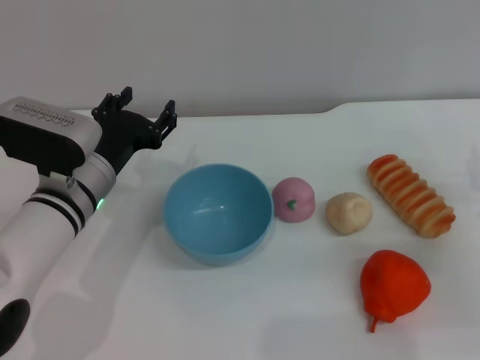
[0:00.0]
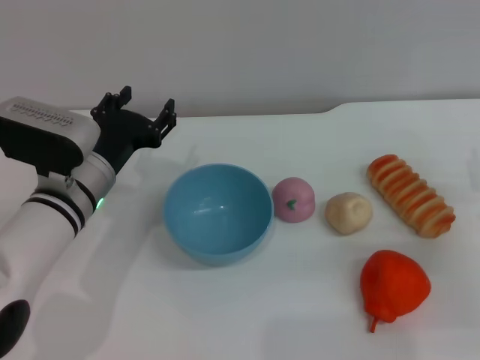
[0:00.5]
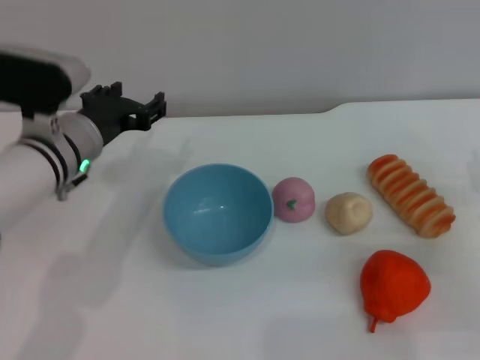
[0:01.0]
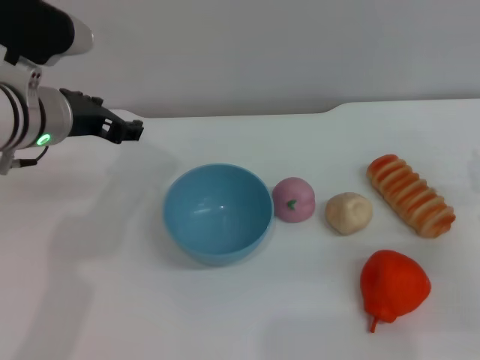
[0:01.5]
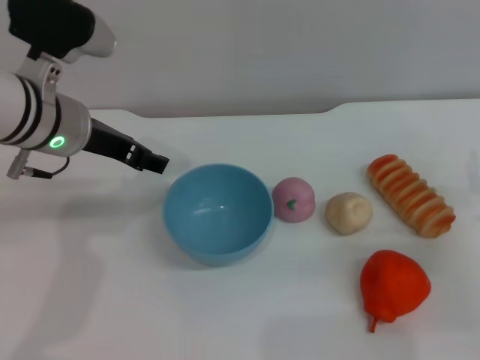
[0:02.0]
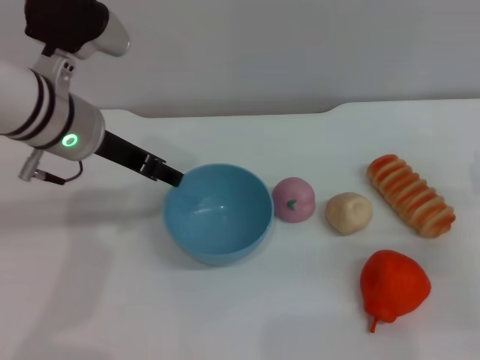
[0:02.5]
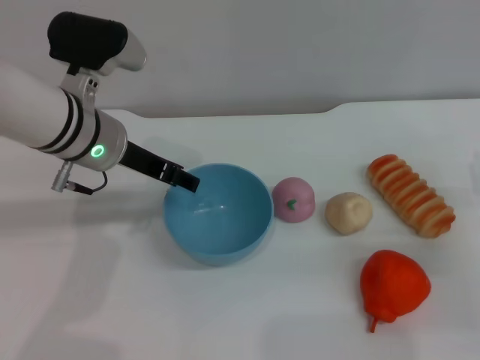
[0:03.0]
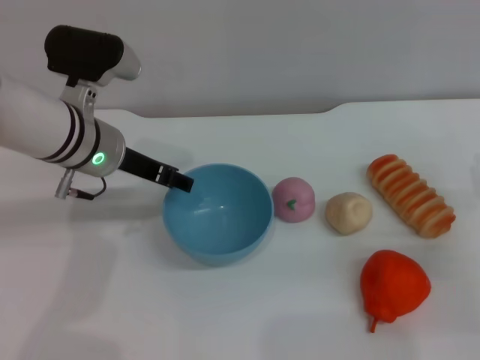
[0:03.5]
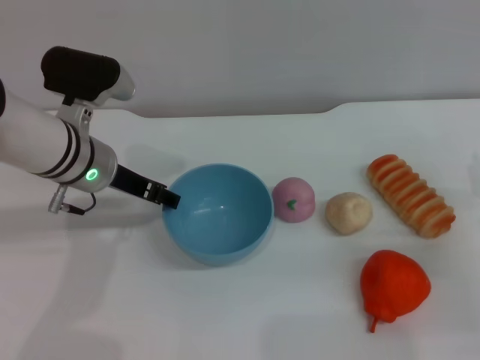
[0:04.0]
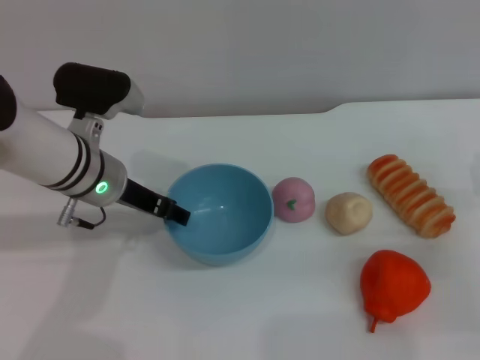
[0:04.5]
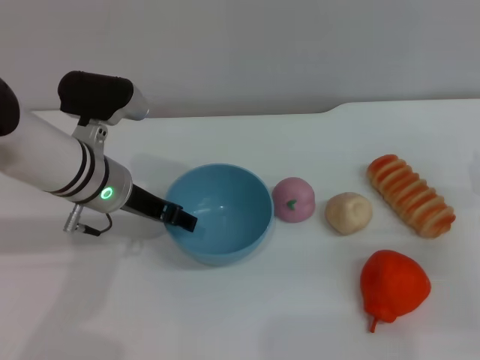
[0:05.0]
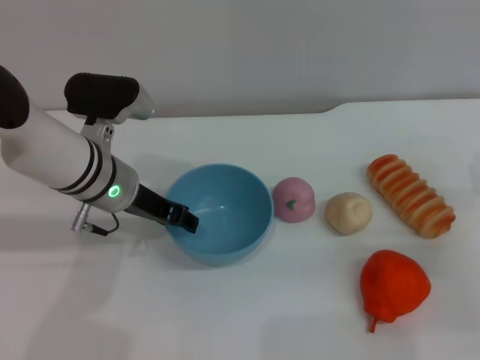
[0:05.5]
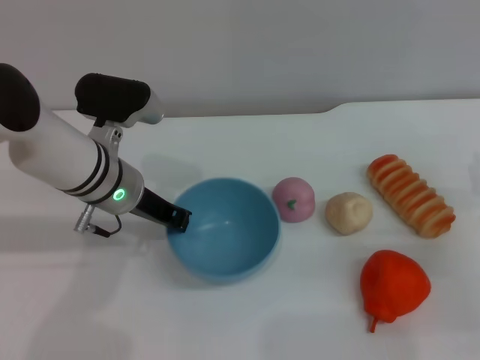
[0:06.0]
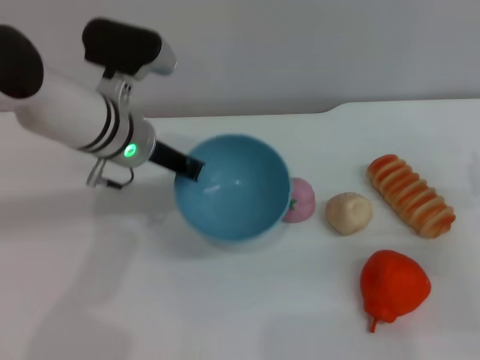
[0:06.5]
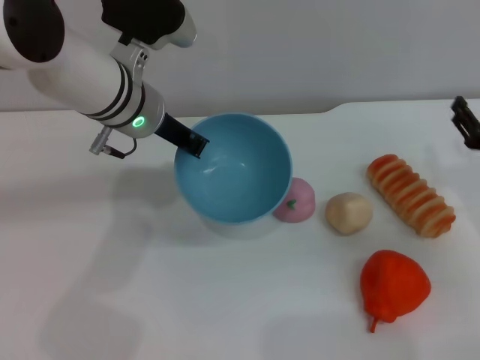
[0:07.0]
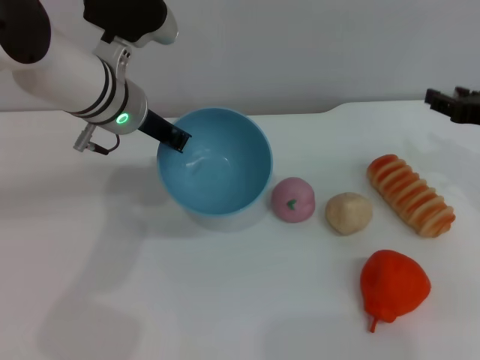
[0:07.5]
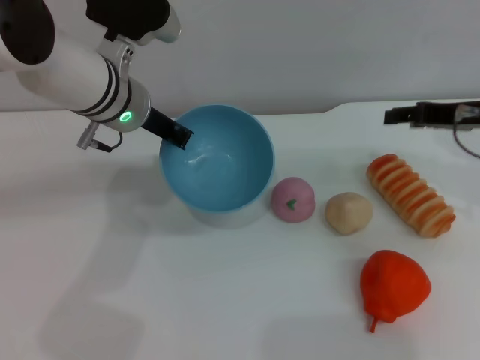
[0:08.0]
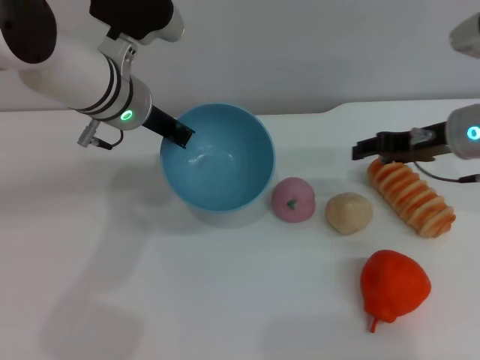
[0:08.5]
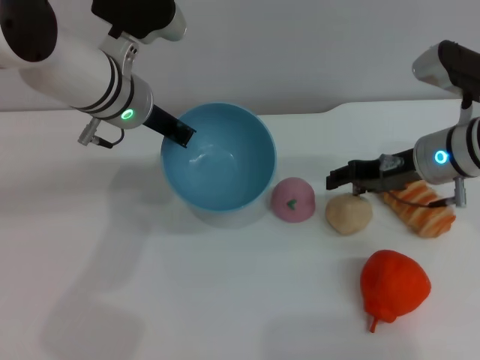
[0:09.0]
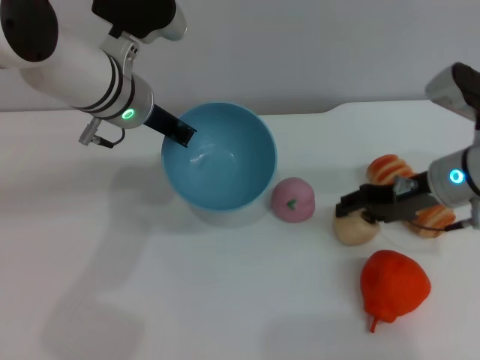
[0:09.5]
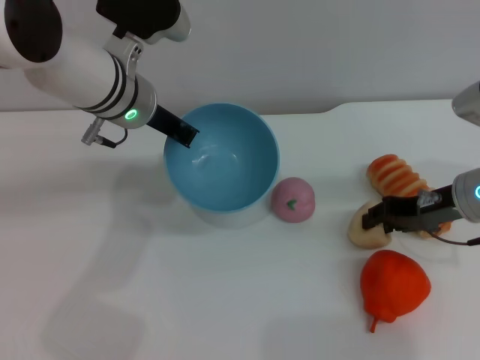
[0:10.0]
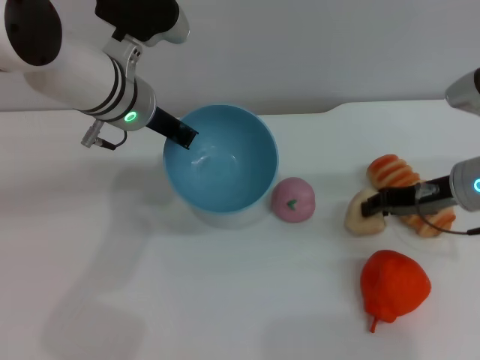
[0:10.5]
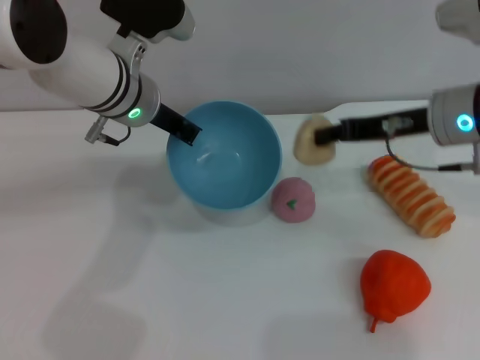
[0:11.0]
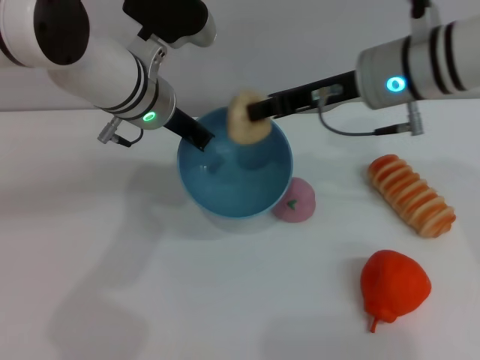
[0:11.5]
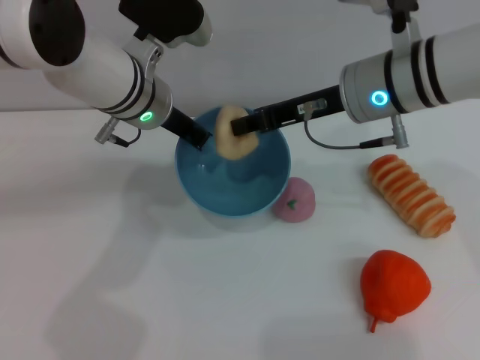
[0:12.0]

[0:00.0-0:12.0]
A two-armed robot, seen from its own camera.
Task of the whole recording: put the egg yolk pastry into the blue bowl and pour it out repeatedly.
Step, 0:00.0 to 0:06.5: Pick up the bowl with the left gripper.
Step, 0:07.0 to 0:10.5: Pick up the egg yolk pastry with the right gripper.
0:00.0 to 0:02.0: The left gripper heads upward, covering some 10 cm.
0:02.0 to 0:04.0: The left gripper travels downward by about 5 cm.
0:04.0 to 0:06.0: The left gripper closes up.
0:06.0 to 0:08.0: The right gripper goes approximately 15 cm upward and forward, while the left gripper travels upward by approximately 5 cm.
0:08.0 to 0:10.0: The right gripper moves downward, approximately 5 cm.
0:10.0 to 0:12.0: The right gripper shifts approximately 15 cm to the left and upward, and closes.

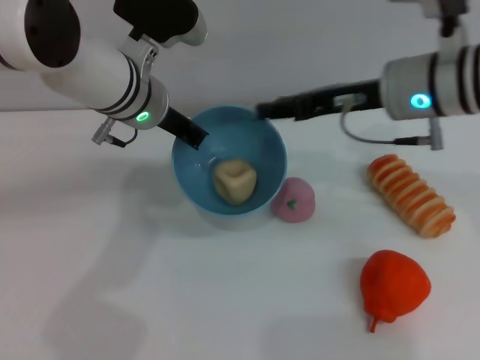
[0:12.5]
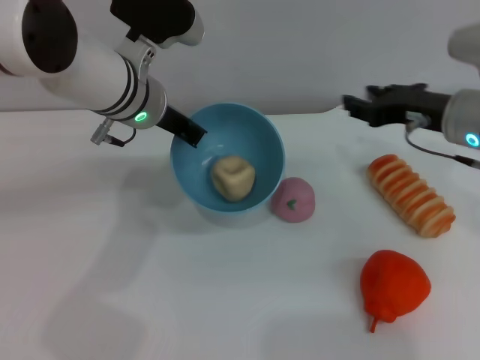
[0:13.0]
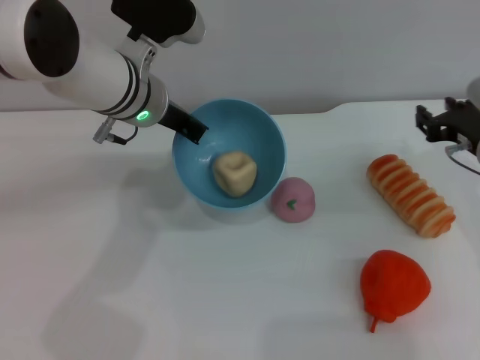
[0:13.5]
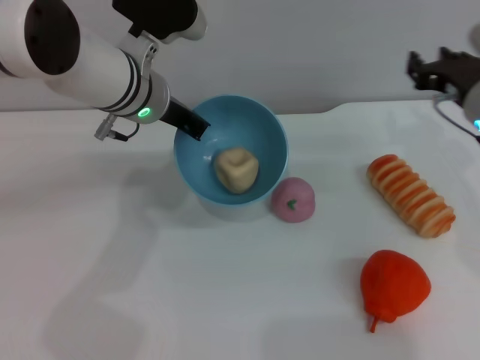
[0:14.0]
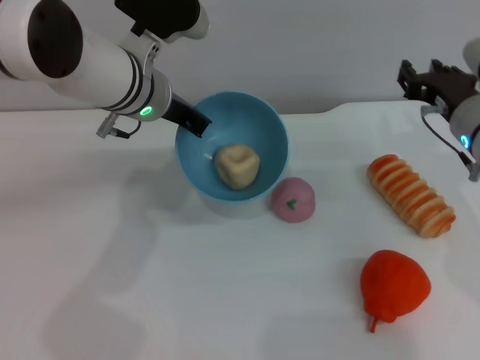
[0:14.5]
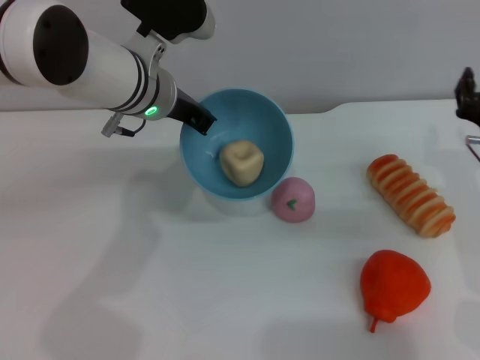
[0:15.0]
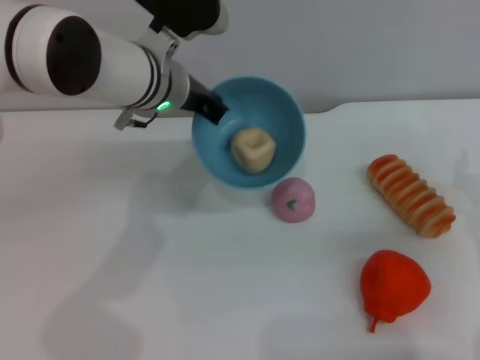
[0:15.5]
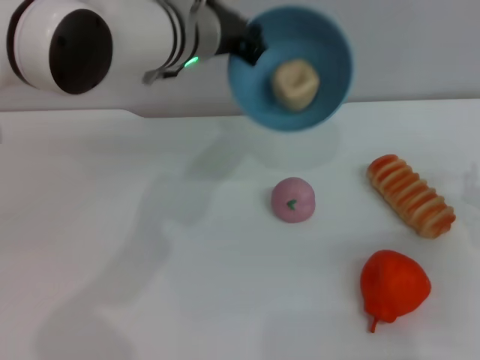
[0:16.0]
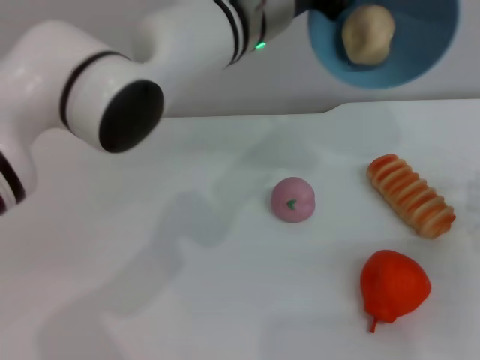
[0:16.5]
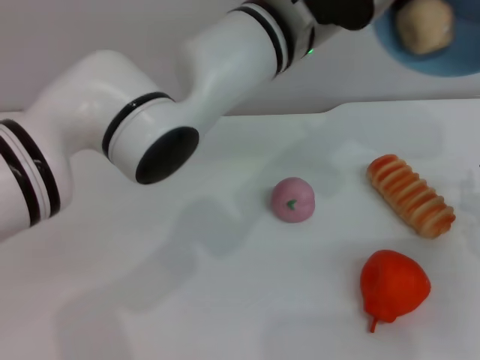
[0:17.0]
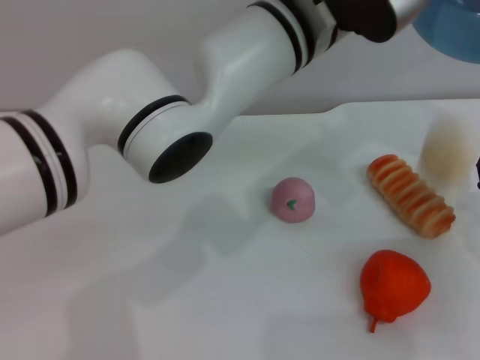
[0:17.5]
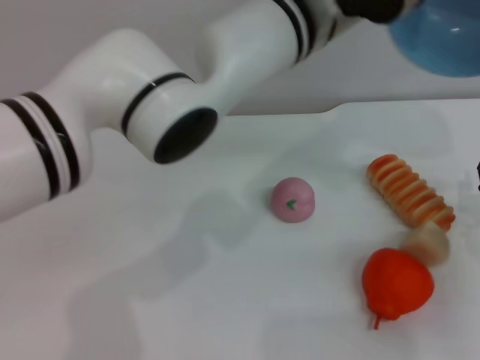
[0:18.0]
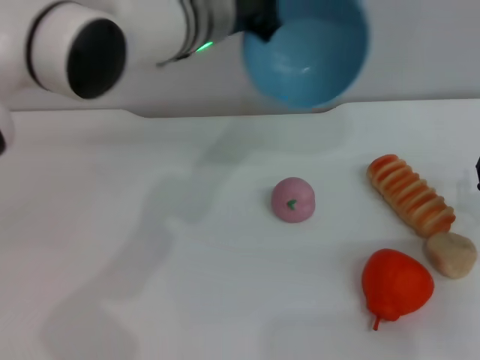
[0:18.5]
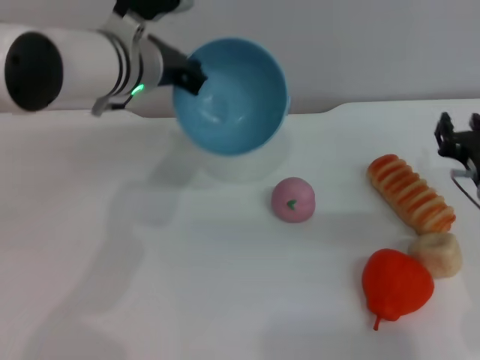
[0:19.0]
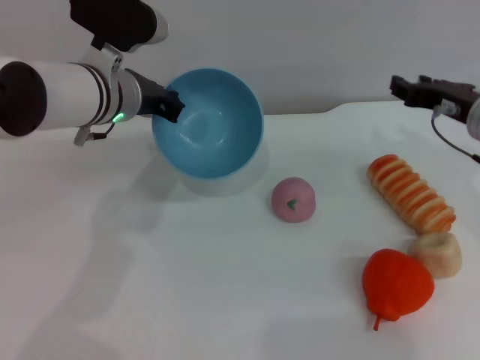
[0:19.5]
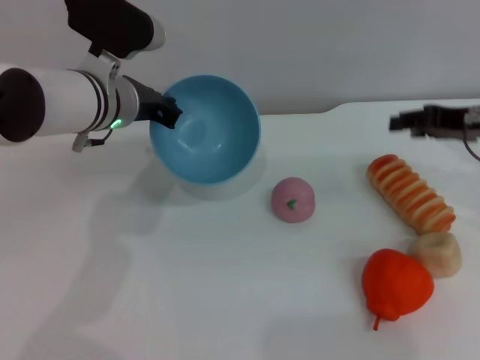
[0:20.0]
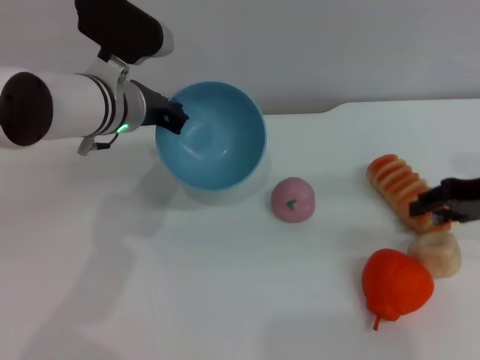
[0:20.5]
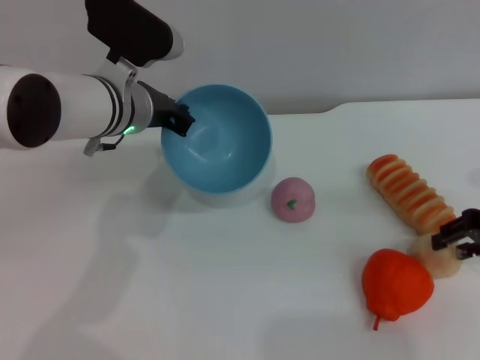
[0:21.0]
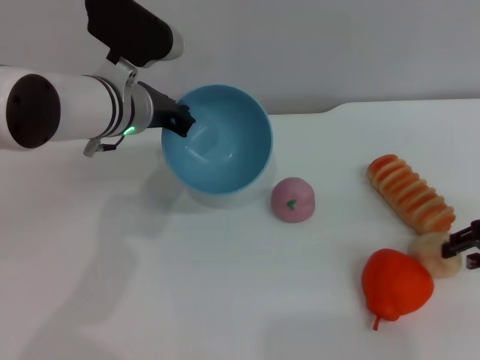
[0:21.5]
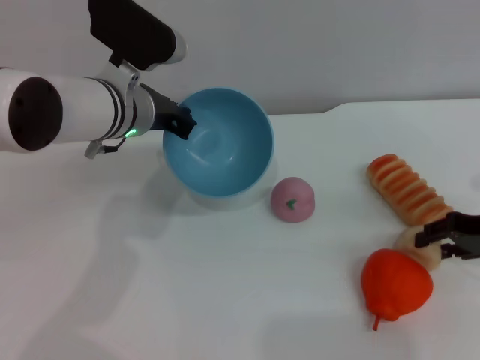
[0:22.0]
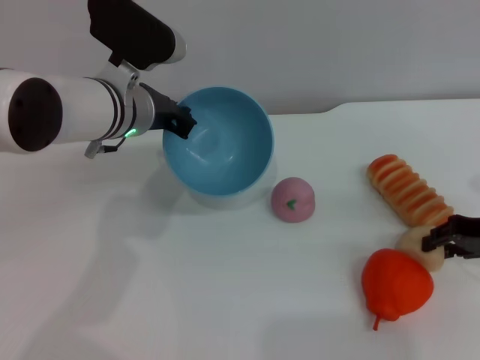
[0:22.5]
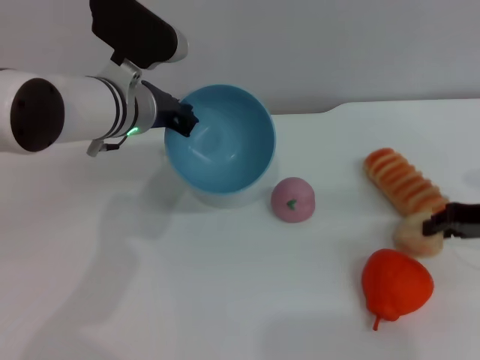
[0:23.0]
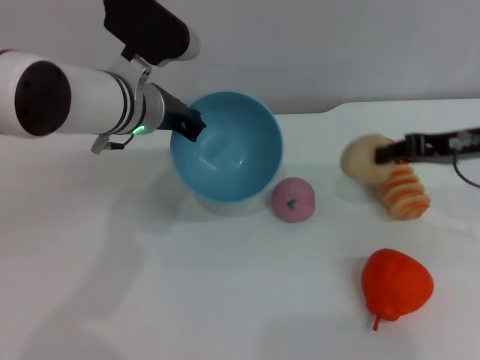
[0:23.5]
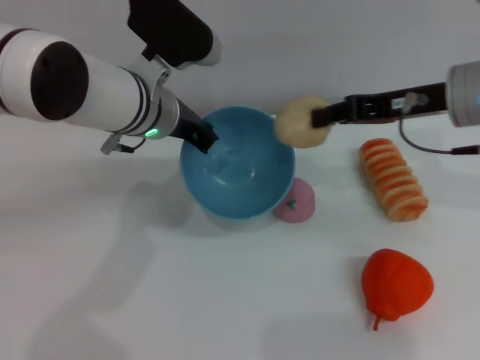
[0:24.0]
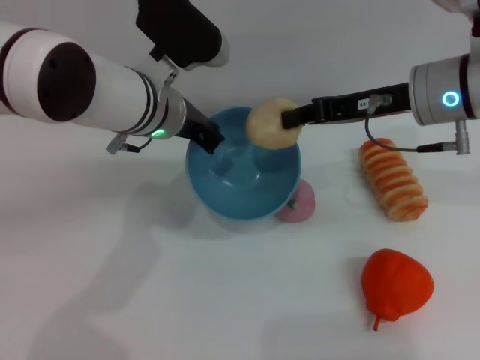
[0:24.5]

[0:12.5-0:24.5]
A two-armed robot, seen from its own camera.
Task of the whole recording: put the egg yolk pastry into the blue bowl and pour it out repeatedly.
Step, 0:13.0 to 0:18.0: Pour the egg yolk pastry out of bowl.
Step, 0:18.5 to 0:23.5: Pick up the egg yolk pastry with the right gripper.
0:12.5 to 0:14.5: The right gripper heads downward and to the right, covering approximately 10 cm.
0:14.5 to 0:16.5: The left gripper goes approximately 10 cm to the right and upward; the right gripper goes roughly 15 cm backward, downward and to the right.
0:16.5 to 0:18.5: The left gripper ends up roughly 5 cm from where it was.
0:18.5 to 0:20.5: The left gripper shifts some 10 cm to the left and downward, while the right gripper goes about 15 cm upward and forward.
0:20.5 to 0:22.5: The right gripper shifts roughly 5 cm downward.
0:22.5 to 0:24.5: The right gripper travels to the left, upward and forward by some 15 cm, and closes up.

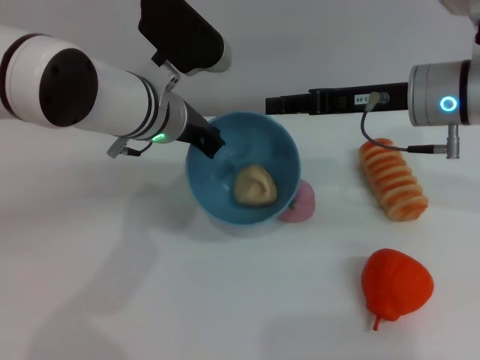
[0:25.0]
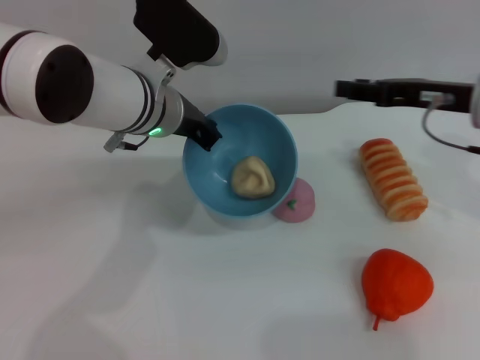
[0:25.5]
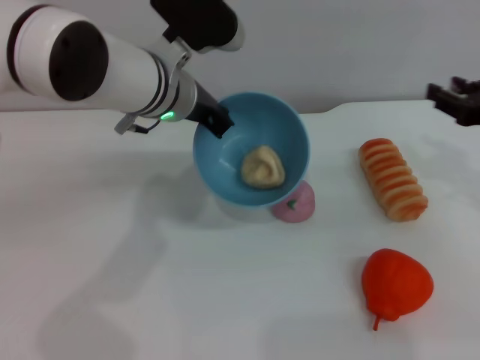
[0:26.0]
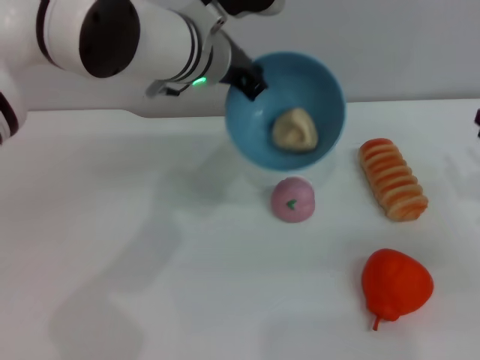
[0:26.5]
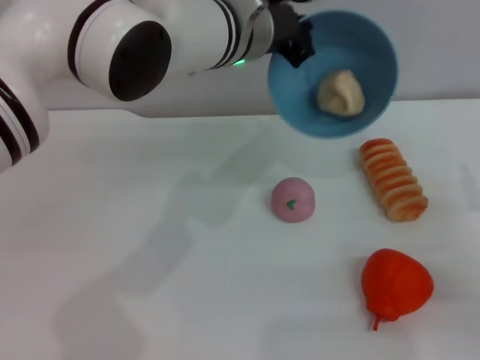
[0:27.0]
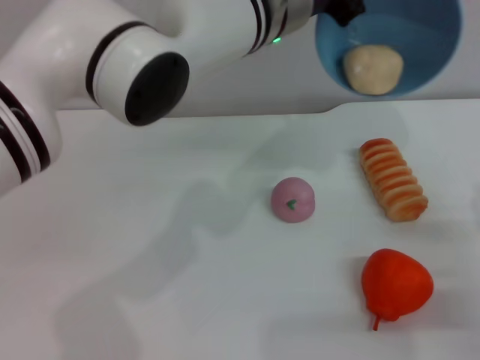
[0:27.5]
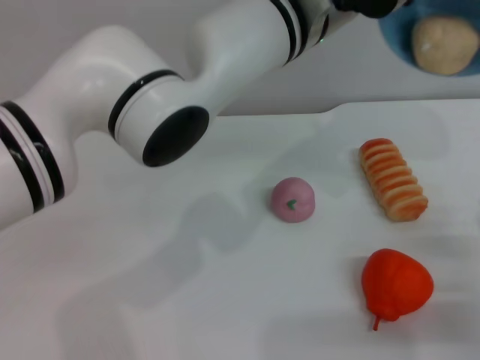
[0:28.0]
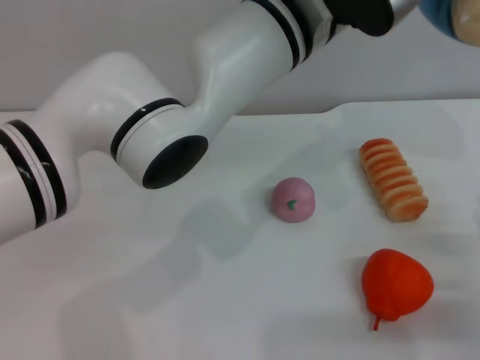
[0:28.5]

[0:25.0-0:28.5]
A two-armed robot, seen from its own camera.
Task of the whole recording: put the egg yolk pastry into the blue bowl and pour it out repeatedly.
0:25.0 to 0:27.0: The right gripper is displaced to the right, downward and backward by about 25 cm. The left gripper shifts approximately 10 cm to the right and upward.
0:27.0 to 0:28.5: The left gripper shifts approximately 5 cm to the right. Meanwhile the right gripper changes place by some 5 cm.
